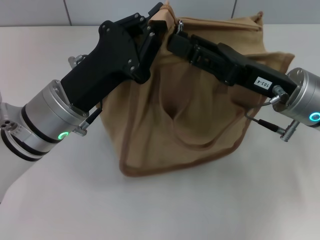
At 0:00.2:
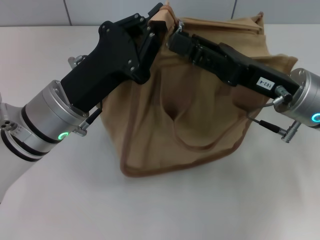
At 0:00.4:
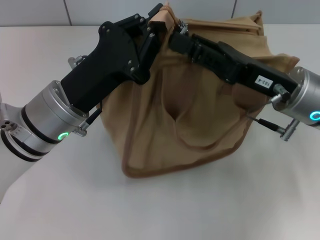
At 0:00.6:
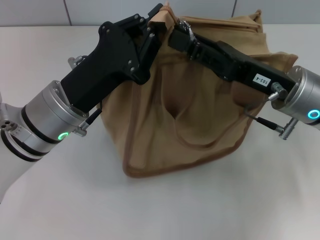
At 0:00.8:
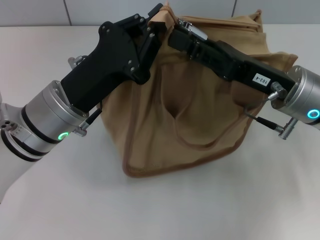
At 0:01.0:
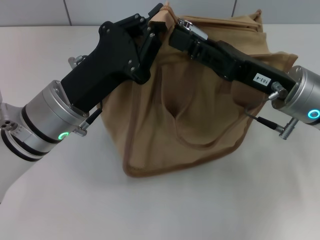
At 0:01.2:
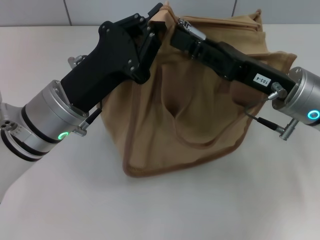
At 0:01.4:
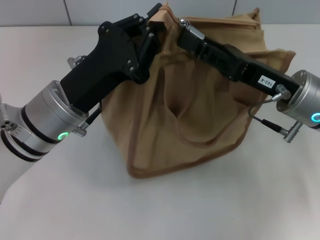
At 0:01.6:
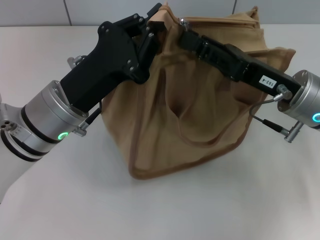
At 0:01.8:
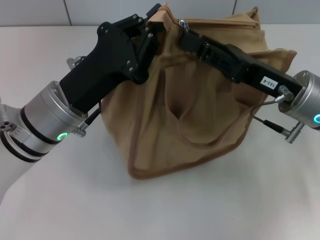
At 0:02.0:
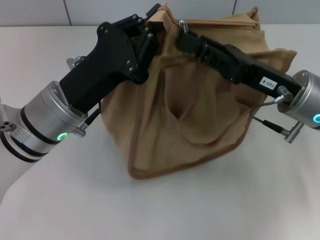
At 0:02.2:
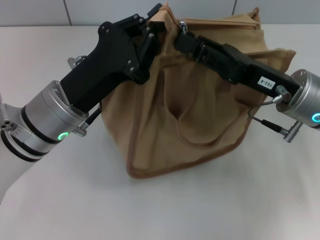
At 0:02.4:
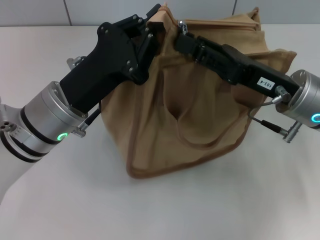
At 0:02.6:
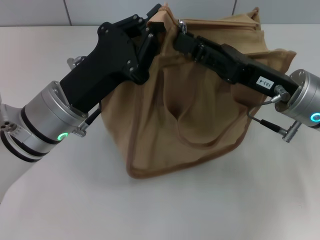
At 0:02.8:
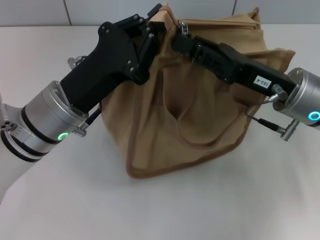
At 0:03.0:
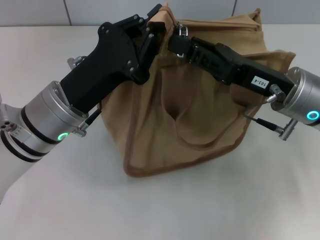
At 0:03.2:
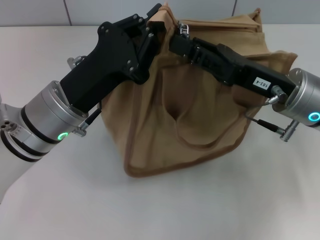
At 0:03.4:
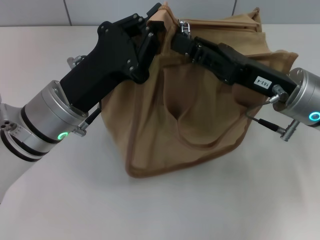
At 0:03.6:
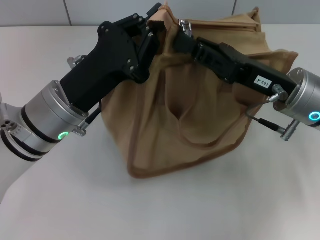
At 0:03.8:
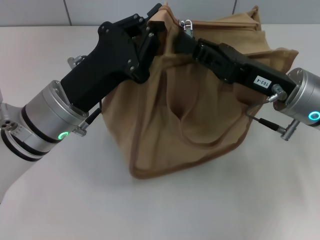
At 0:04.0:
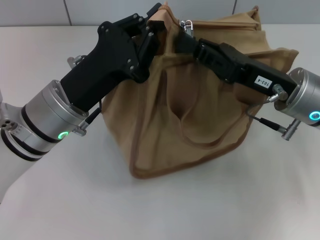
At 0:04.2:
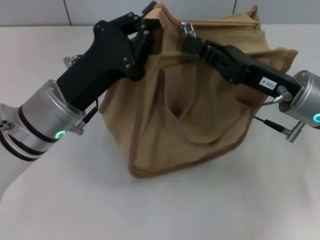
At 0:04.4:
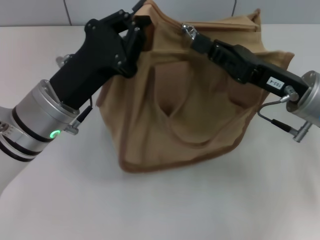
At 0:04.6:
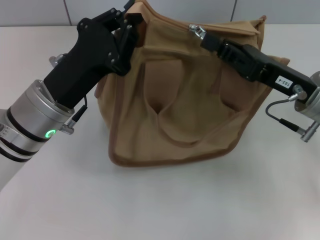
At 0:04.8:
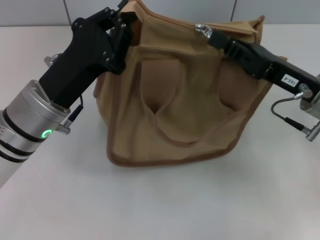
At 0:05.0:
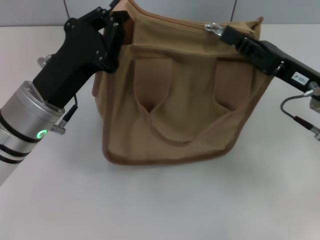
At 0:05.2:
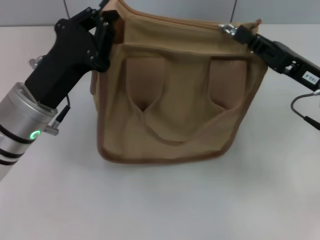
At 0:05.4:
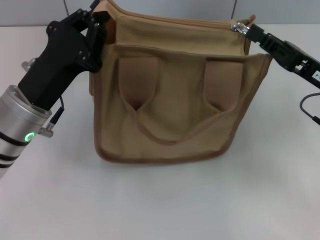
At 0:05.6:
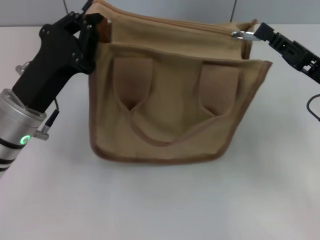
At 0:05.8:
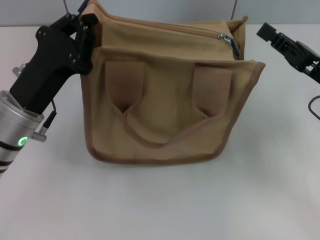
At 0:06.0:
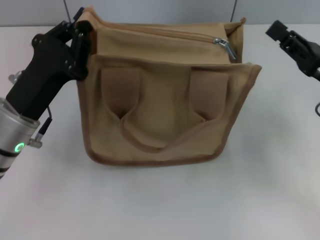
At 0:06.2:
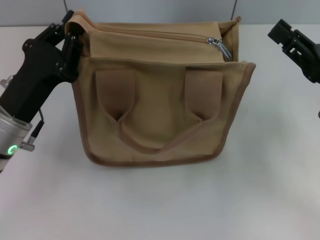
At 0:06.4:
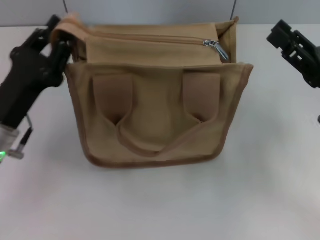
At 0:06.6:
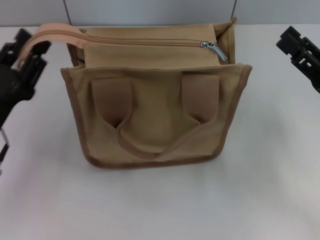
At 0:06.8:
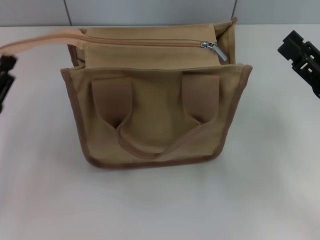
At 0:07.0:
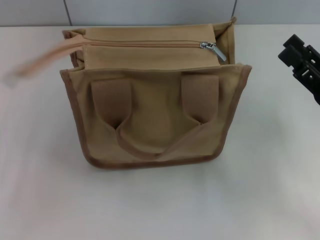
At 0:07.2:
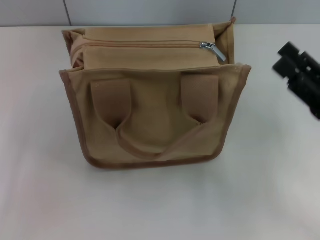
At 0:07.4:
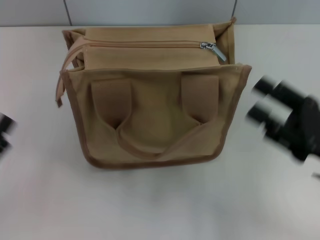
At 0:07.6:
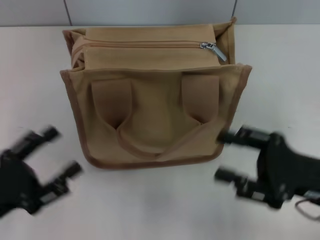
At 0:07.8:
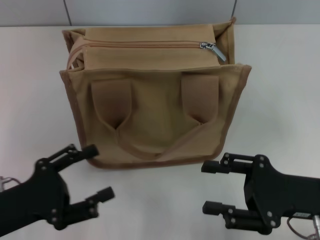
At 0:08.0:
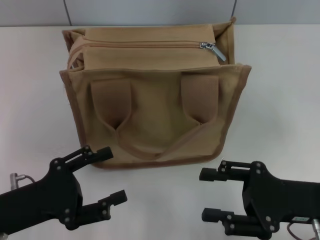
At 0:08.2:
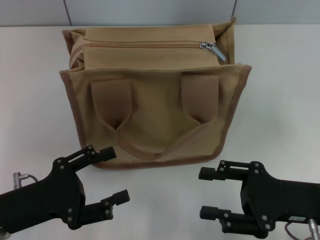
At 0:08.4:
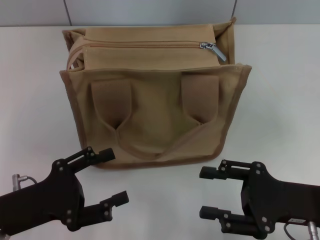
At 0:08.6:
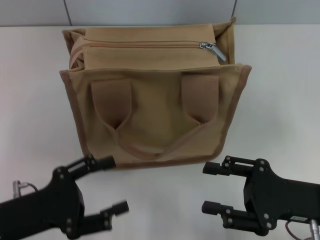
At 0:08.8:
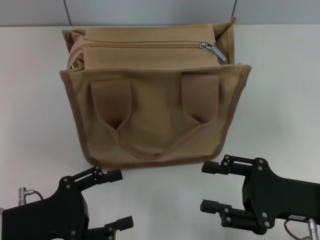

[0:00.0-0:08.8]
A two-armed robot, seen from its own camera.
Step, 0:00.0 to 0:05.6: Pull up the zipper with your right hand.
Step, 0:05.8 to 0:07.0: Grab the zipper with your left hand.
0:00.0 to 0:01.4: The grippers make only small movements.
0:01.4 to 0:03.0: Both grippers stay put.
0:03.0 to 0:04.4: The right gripper closes its fingers.
0:04.4 to 0:05.8: The right gripper moves to the right, approximately 5 cm.
0:05.8 to 0:07.4: The left gripper travels backward and to the left by approximately 15 cm, and opens its fingers; the right gripper heads backward, covering roughly 5 cm, and opens.
0:07.4 to 0:08.8: The left gripper travels to the right by about 5 cm.

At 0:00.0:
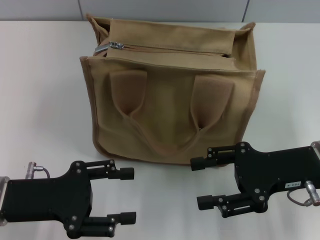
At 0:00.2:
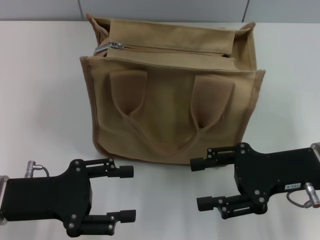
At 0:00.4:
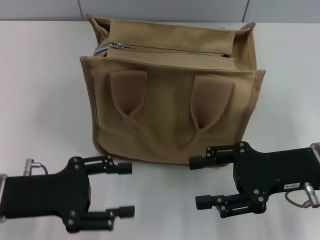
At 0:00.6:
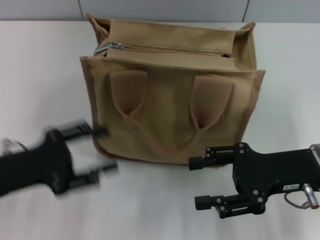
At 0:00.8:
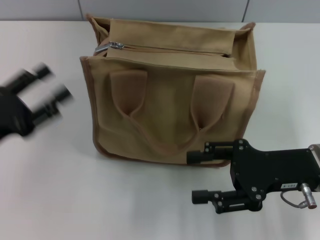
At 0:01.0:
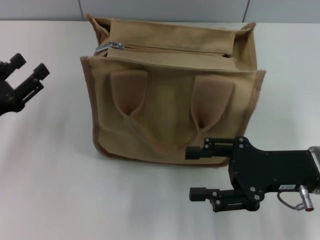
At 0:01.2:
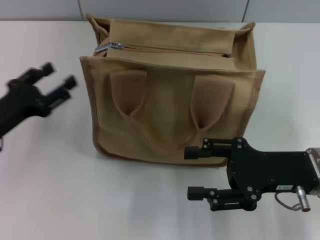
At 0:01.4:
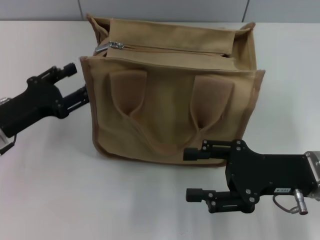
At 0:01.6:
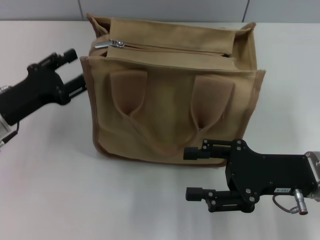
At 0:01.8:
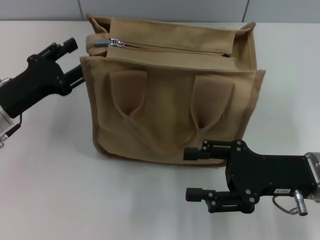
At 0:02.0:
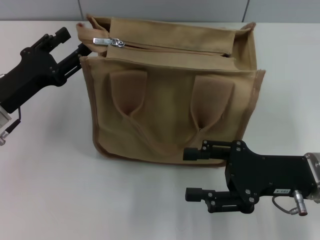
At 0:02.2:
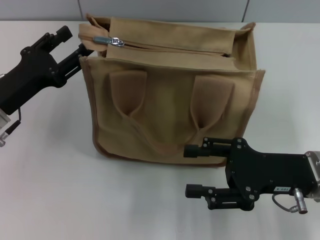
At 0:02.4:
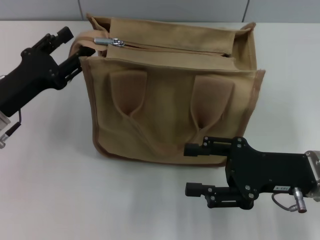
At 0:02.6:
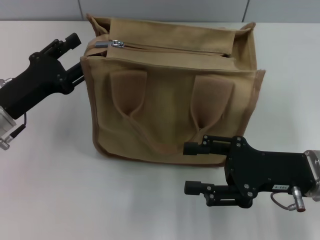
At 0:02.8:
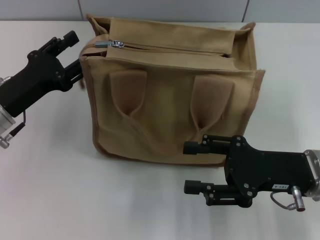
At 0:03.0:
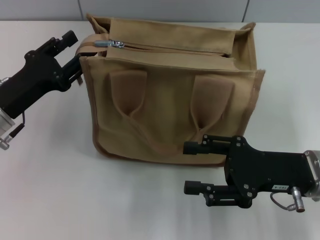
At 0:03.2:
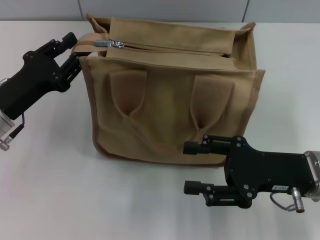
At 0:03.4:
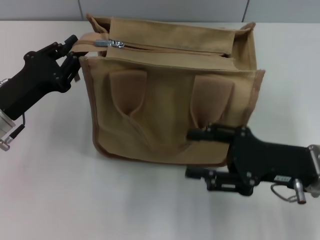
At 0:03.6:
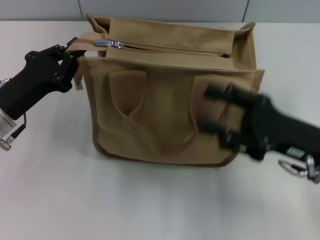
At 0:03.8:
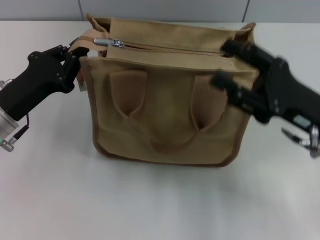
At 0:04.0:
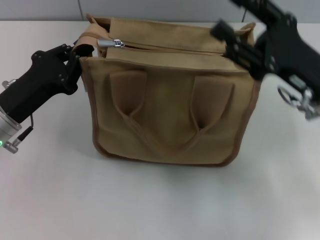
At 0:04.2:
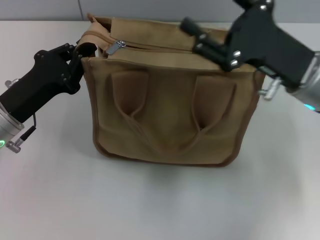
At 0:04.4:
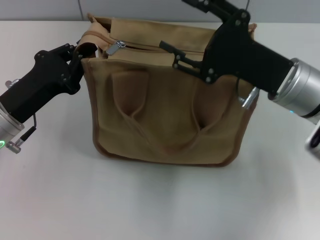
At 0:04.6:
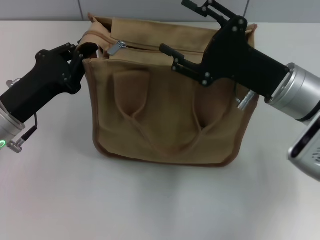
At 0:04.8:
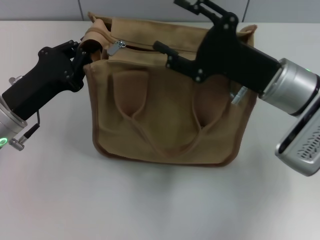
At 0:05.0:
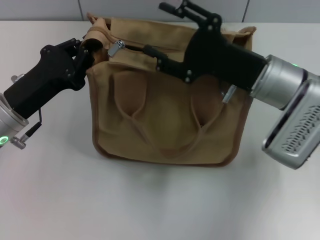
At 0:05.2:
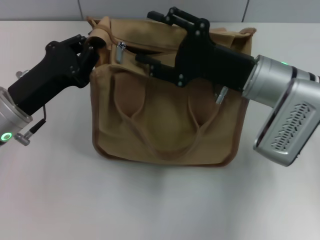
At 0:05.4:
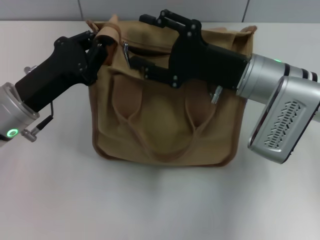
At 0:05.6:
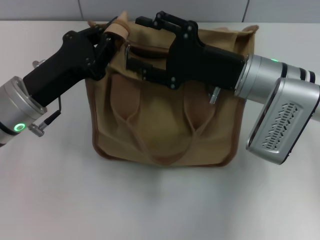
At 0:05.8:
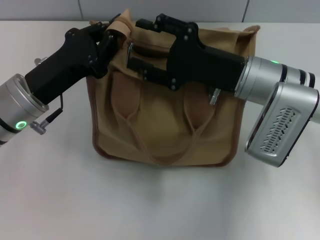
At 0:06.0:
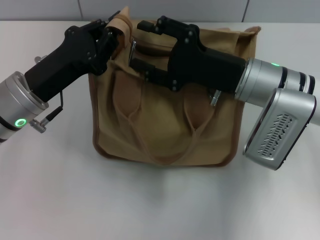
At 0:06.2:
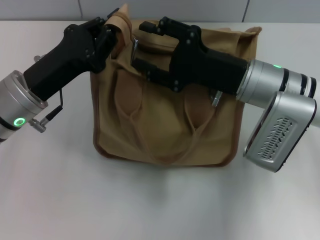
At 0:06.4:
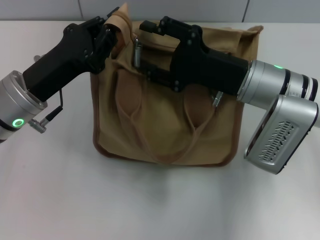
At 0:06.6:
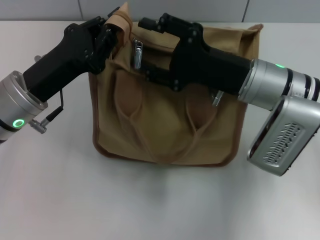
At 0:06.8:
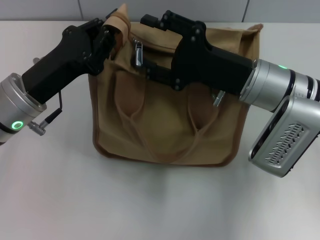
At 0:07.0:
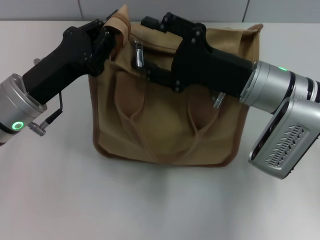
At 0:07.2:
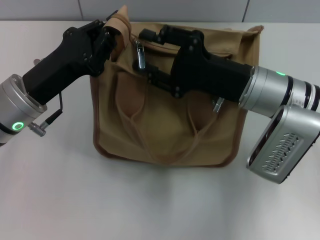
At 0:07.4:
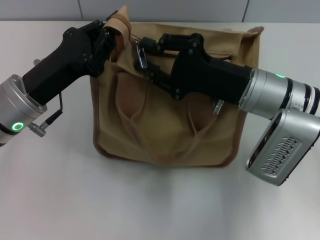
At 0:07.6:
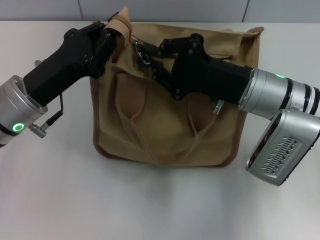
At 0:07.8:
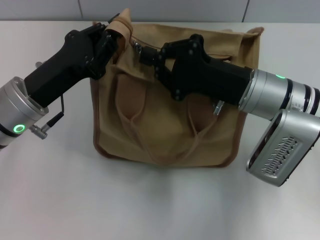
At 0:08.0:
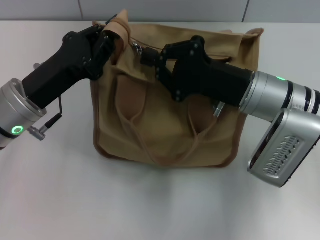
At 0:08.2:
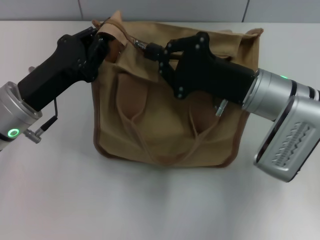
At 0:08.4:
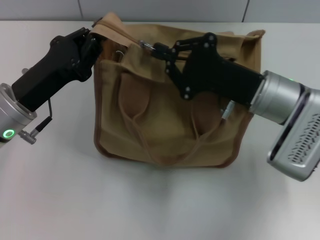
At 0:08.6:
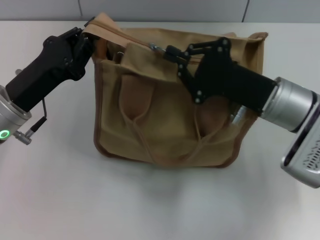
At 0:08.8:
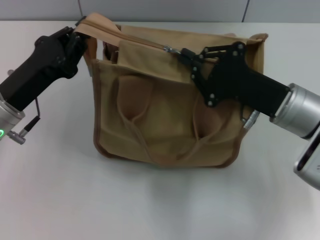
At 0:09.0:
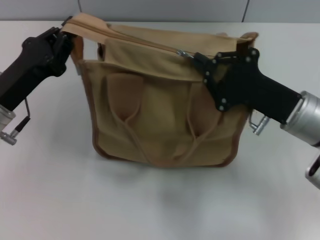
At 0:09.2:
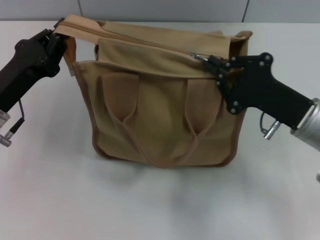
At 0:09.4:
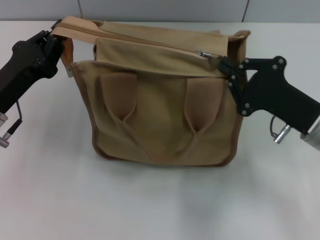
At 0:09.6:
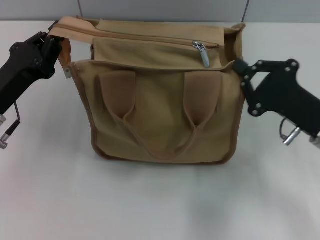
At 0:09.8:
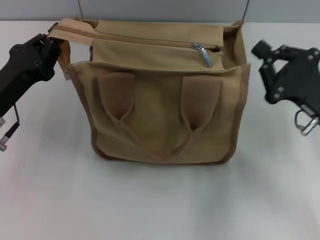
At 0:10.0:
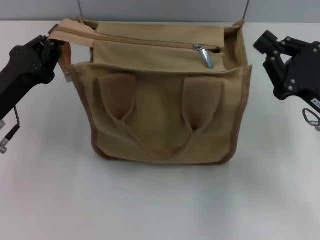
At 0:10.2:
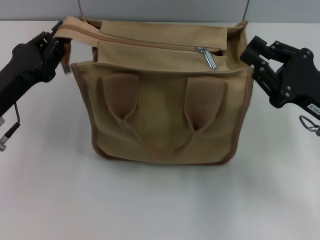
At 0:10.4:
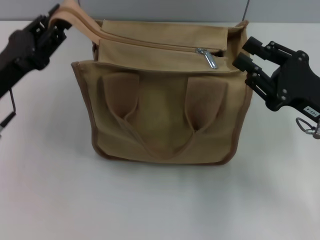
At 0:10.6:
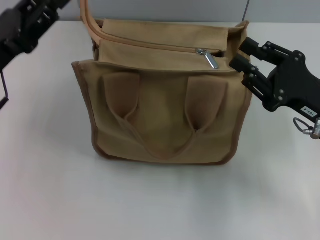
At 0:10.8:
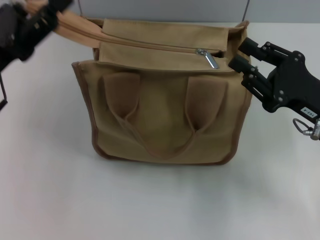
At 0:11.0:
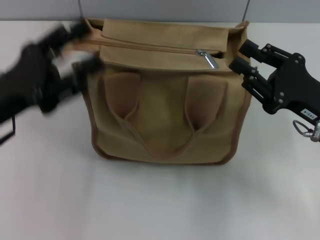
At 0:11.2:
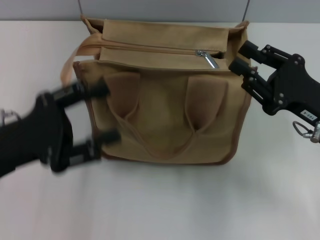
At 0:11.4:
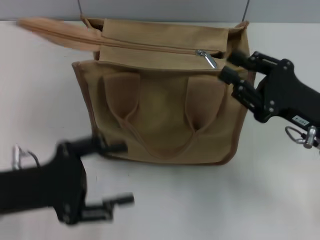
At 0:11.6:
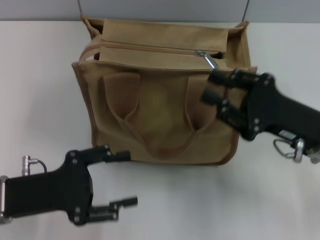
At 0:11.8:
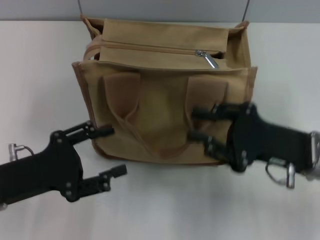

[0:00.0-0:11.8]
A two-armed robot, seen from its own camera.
Step, 0:00.0 to 0:09.4: Pull up the zipper with your right hand.
Step, 0:09.8 to 0:11.2: Grab the zipper with your left hand.
0:00.0 to 0:01.4: The left gripper is displaced forward by about 5 cm.
0:01.4 to 0:03.0: There are only small adjustments of the grippers.
0:03.0 to 0:04.4: The left gripper closes; the right gripper heads forward, covering roughly 5 cm.
0:06.0 to 0:07.4: There are only small adjustments of the grippers.
0:07.4 to 0:08.8: The right gripper closes its fingers.
0:08.8 to 0:10.4: The right gripper travels to the right by approximately 5 cm.
0:10.4 to 0:11.8: The left gripper is displaced backward by about 5 cm, and opens its fingers.

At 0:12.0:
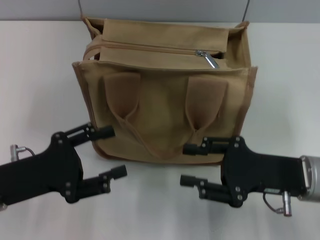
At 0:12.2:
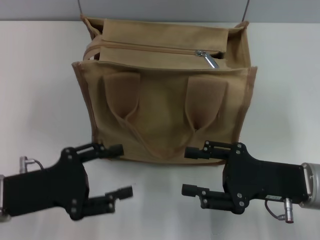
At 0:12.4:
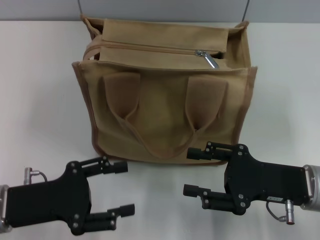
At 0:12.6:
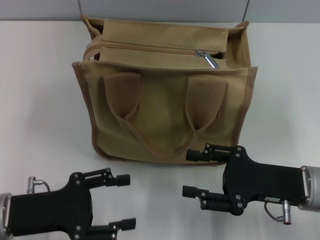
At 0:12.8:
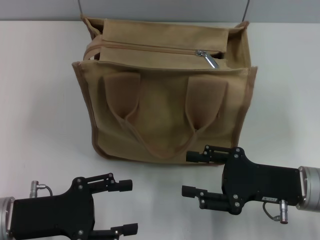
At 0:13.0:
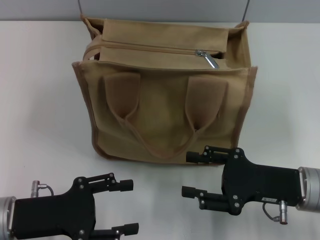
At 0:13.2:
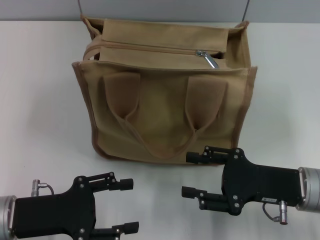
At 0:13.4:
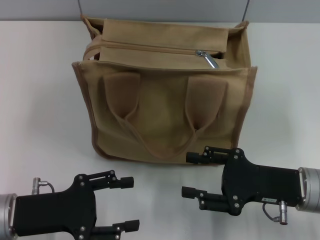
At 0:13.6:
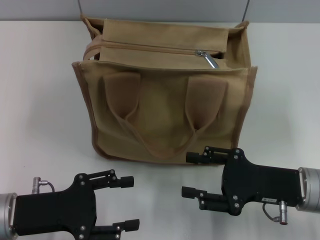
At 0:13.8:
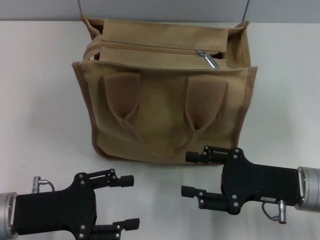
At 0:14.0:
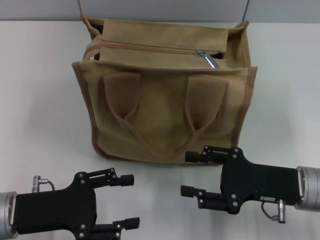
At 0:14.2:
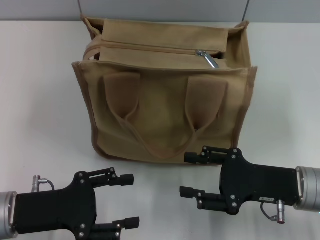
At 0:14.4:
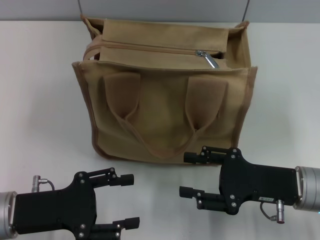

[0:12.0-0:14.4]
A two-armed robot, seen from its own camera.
0:12.0 to 0:13.2: The right gripper opens up.
0:13.2 to 0:14.4: Neither gripper changes place.
